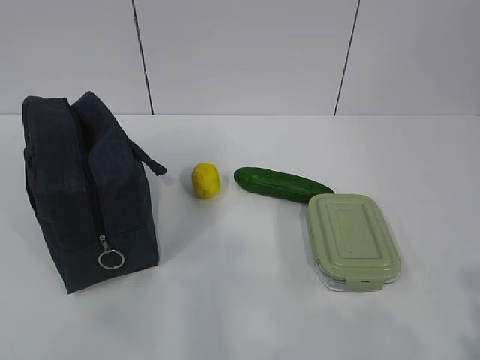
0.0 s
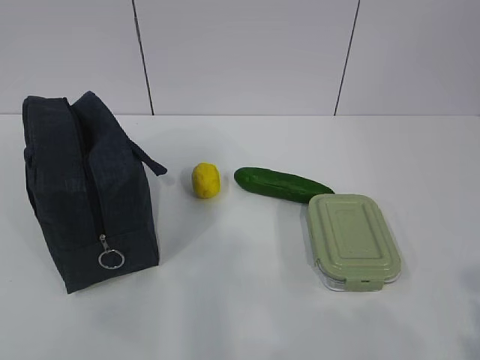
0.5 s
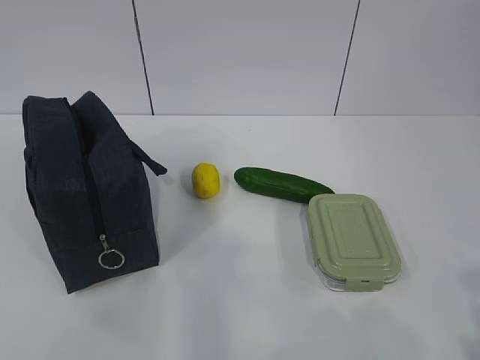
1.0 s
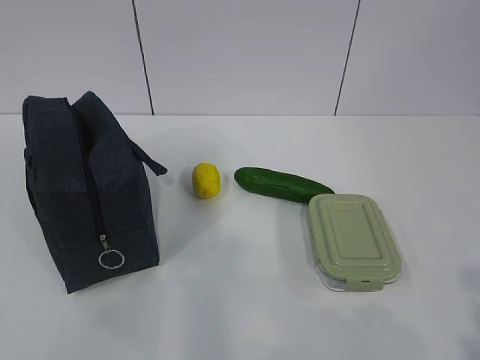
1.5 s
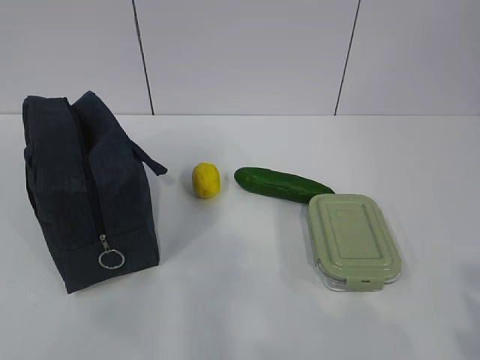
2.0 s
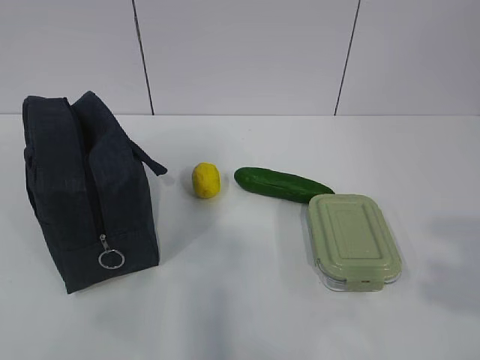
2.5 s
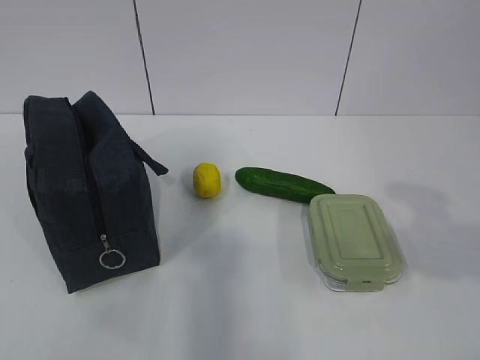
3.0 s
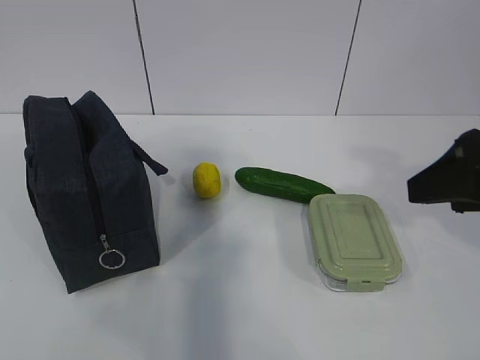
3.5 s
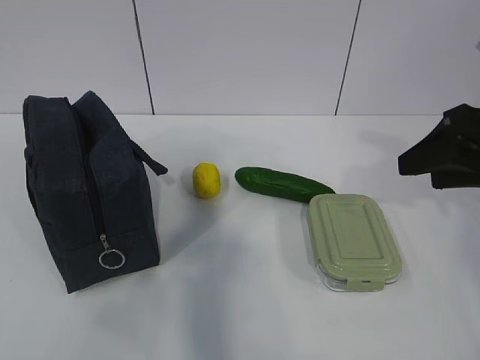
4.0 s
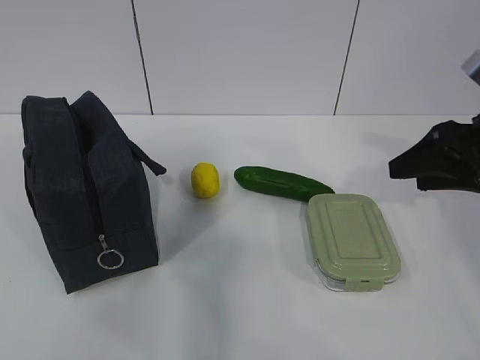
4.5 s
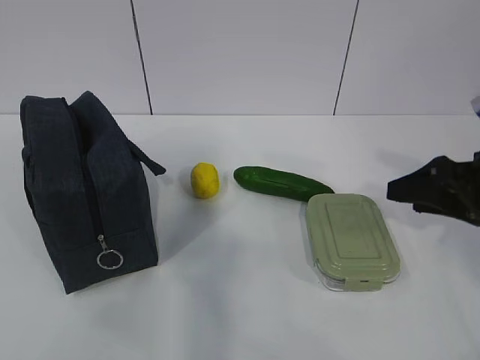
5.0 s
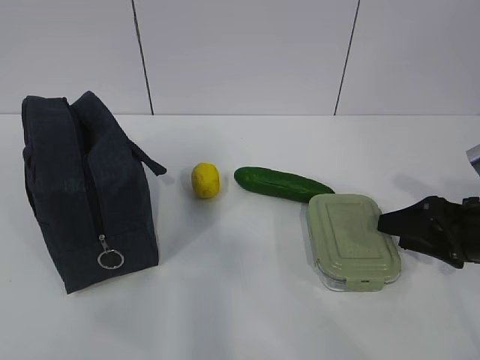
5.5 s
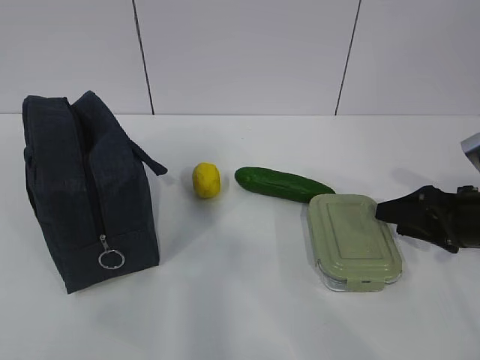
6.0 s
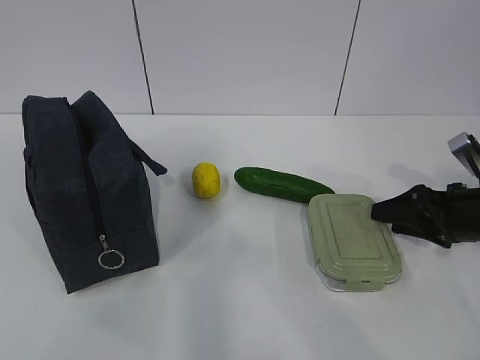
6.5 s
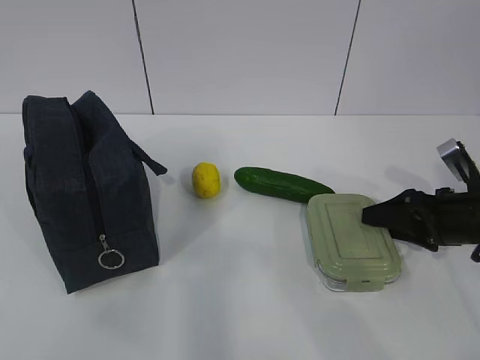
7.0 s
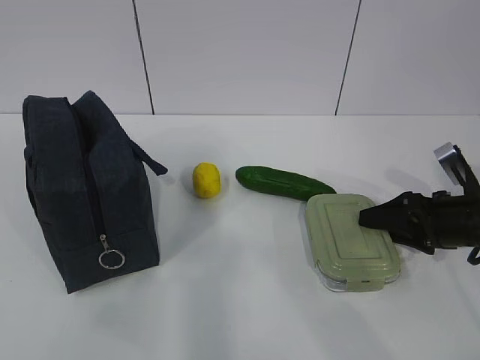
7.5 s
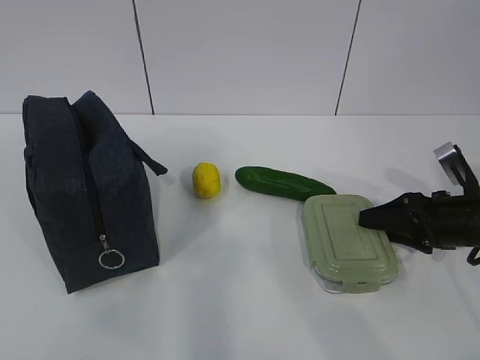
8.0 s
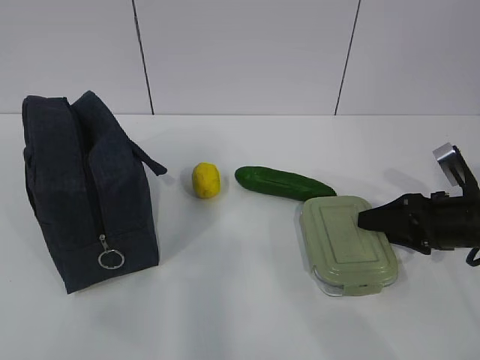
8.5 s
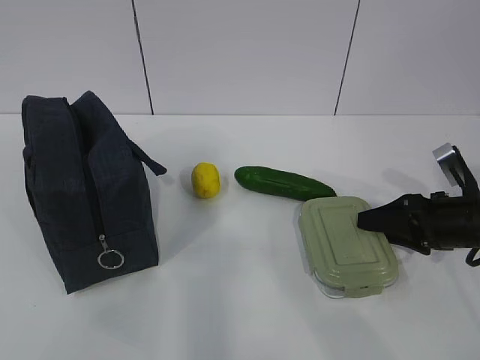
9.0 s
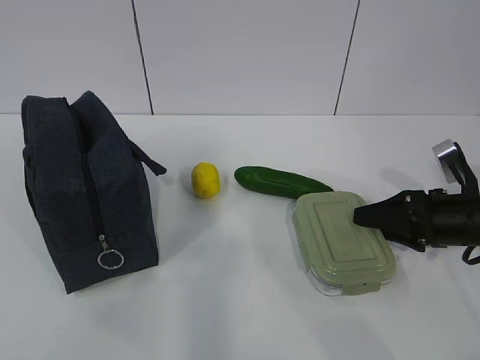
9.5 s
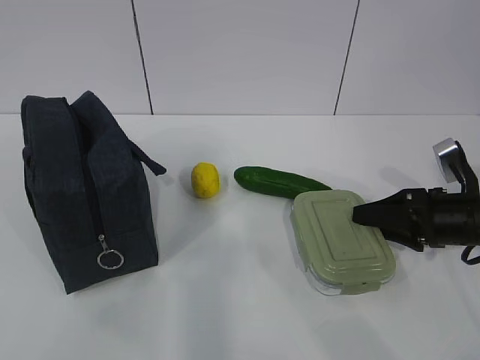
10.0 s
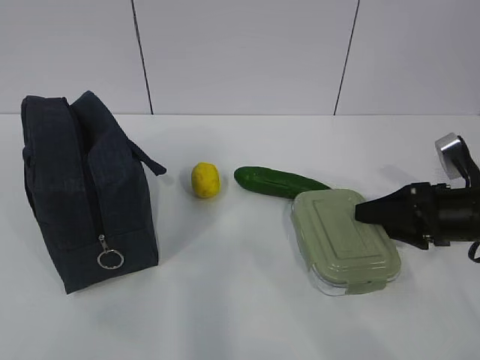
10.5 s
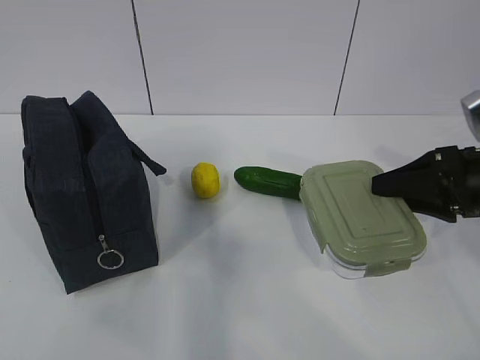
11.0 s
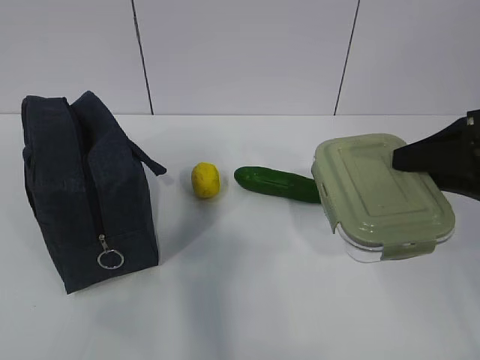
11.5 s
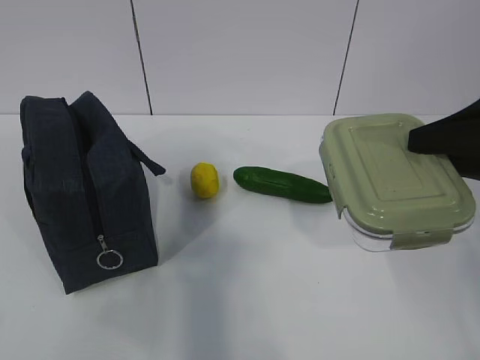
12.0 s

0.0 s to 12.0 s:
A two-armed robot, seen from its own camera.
Step, 0.0 to 7.0 s: Grab the lunch box with your right hand.
2.0 to 4.0 s: The right gripper is displaced forward by roughly 25 cm.
4.0 to 6.0 s: The right gripper is displaced downward by approximately 15 cm.
6.0 to 10.0 s: The grippers stay close to where they were, moving slightly.
10.0 to 12.0 s: The right gripper shifts some 20 cm upward and backward.

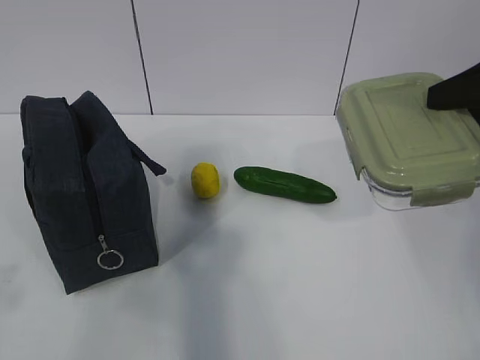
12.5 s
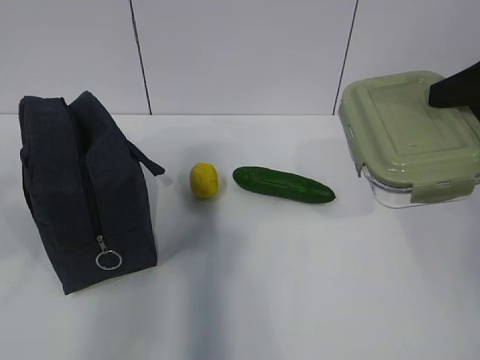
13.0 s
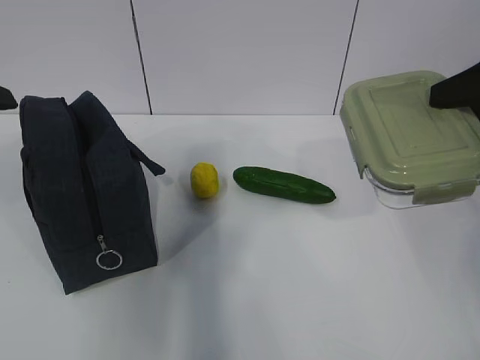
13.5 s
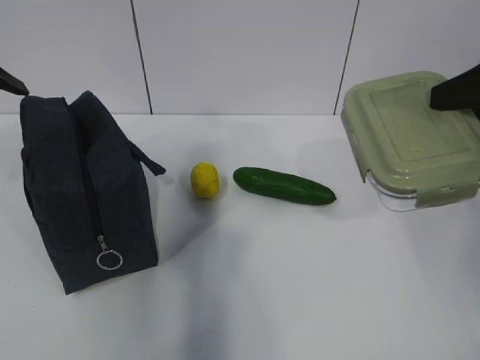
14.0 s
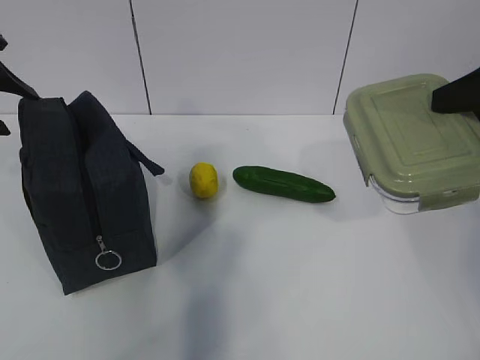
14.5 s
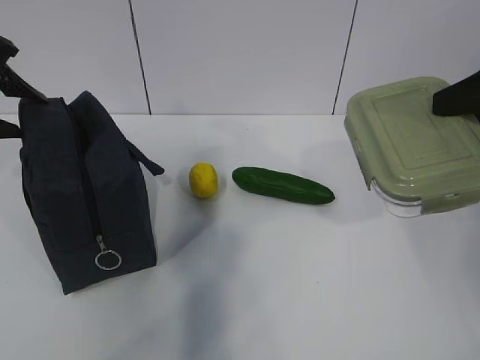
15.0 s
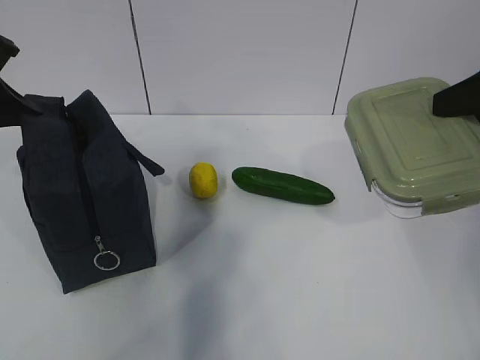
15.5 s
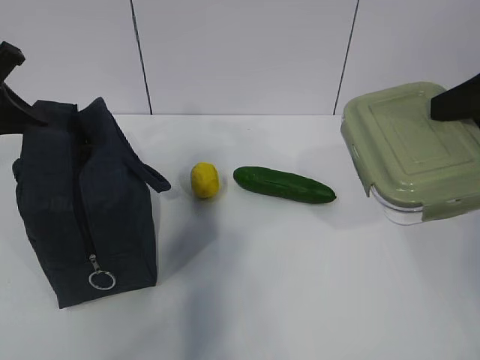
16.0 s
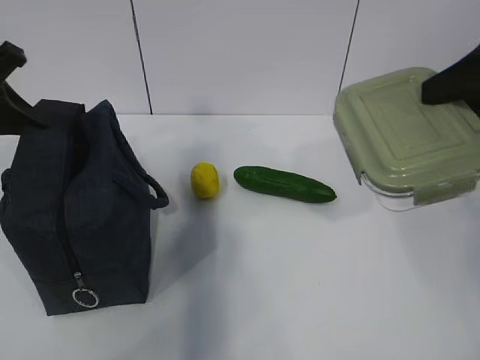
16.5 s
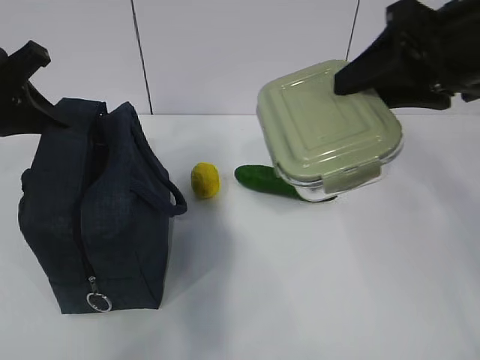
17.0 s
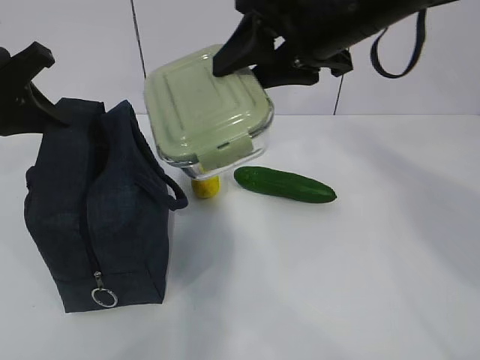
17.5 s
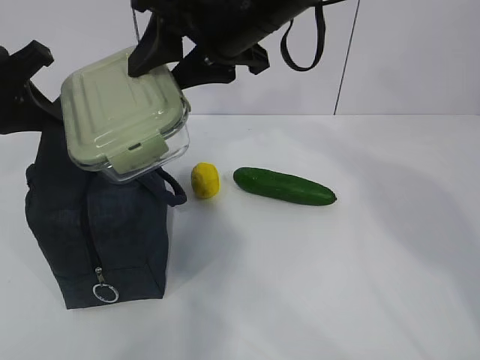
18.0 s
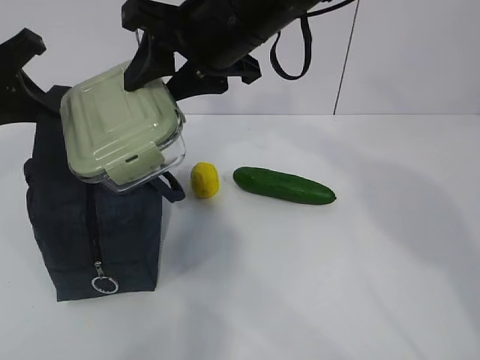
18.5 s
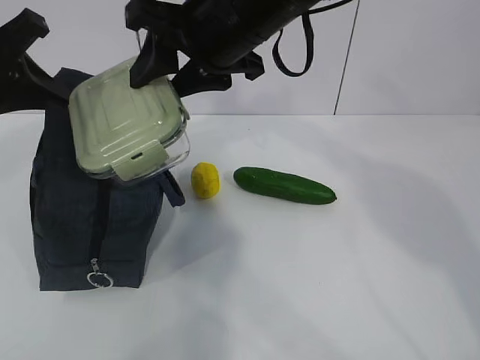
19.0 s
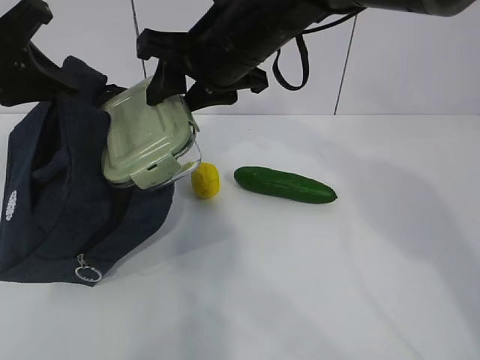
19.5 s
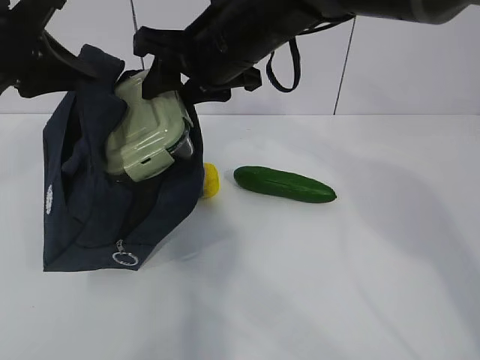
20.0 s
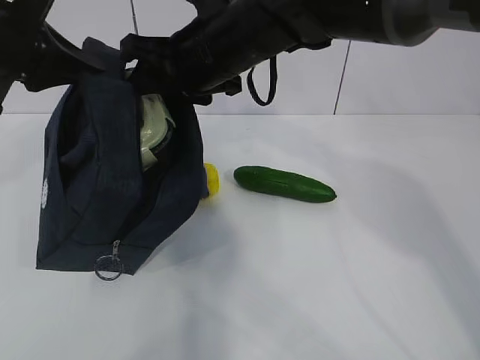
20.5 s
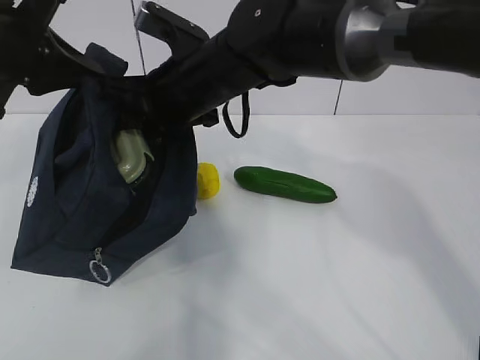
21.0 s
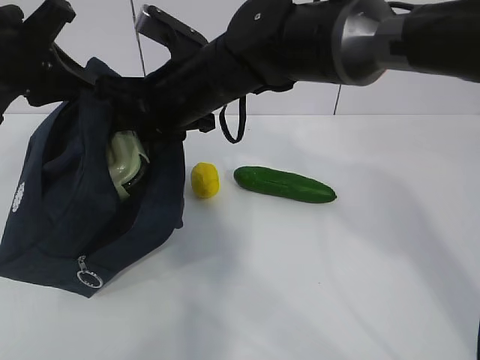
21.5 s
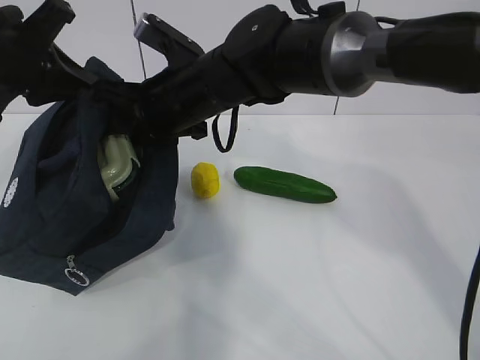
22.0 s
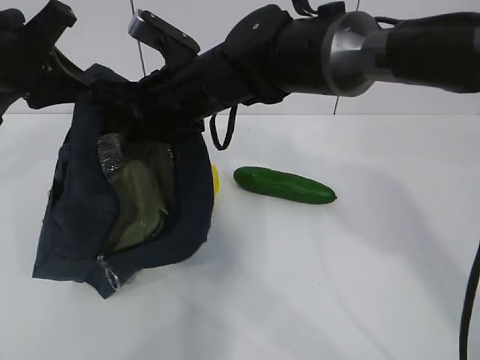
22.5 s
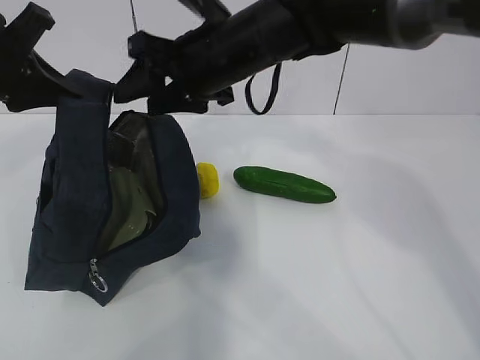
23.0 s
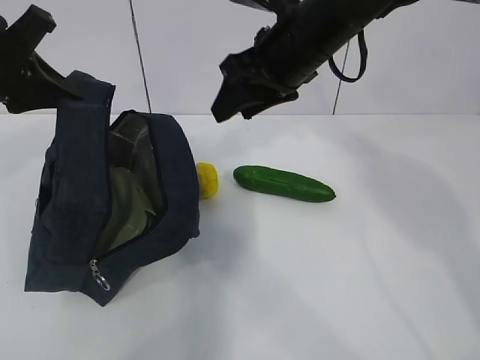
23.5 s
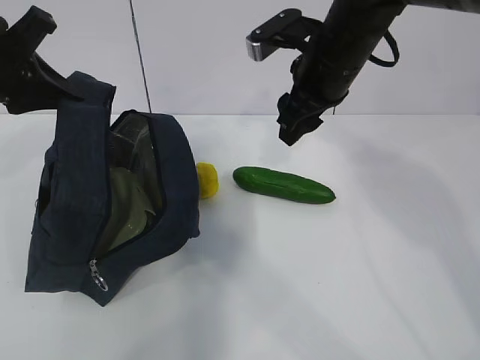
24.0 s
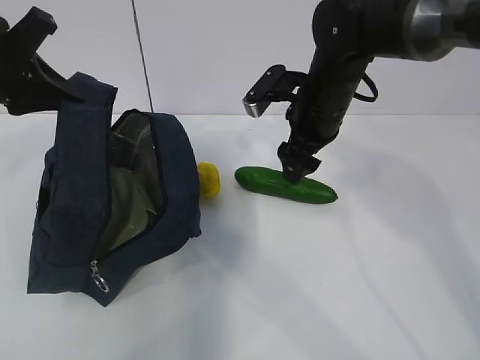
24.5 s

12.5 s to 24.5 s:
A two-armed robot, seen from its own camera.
Step, 12.5 to 15.0 s: Grab the lunch bag with your left hand.
Step, 15.5 to 18.5 s: Place it into the bag with your right hand.
Step, 19.0 to 21.5 s: Grab the cucumber with your right hand.
12.5 to 14.5 s: The left gripper moves forward, about 30 cm.
14.5 to 16.5 s: The left gripper closes up.
16.5 to 18.5 s: The right gripper goes about 25 cm to the left.
18.5 to 20.5 s: The left gripper changes place by some 5 cm, while the right gripper changes place by some 5 cm.
20.5 to 22.5 s: The right gripper changes place by approximately 5 cm.
22.5 to 24.5 s: The right gripper moves to the right, roughly 15 cm.

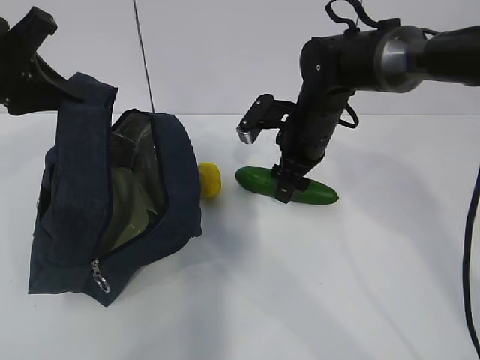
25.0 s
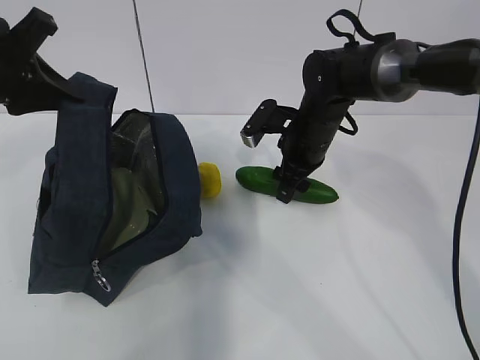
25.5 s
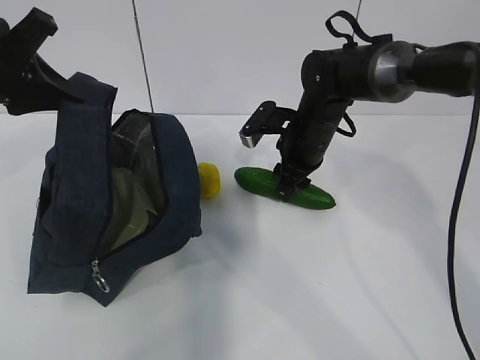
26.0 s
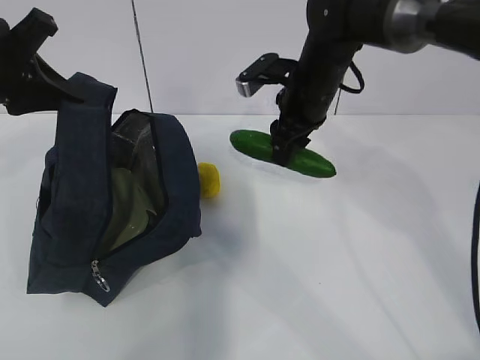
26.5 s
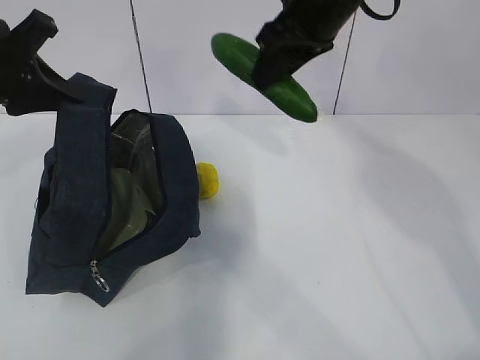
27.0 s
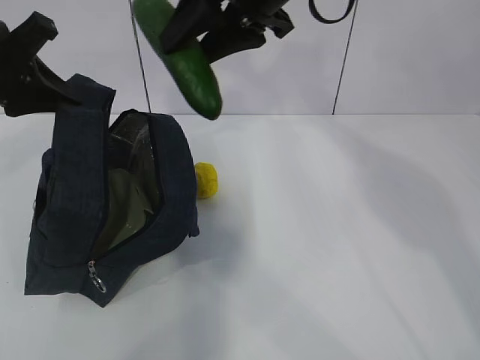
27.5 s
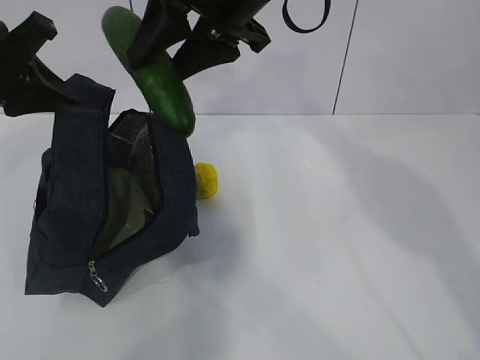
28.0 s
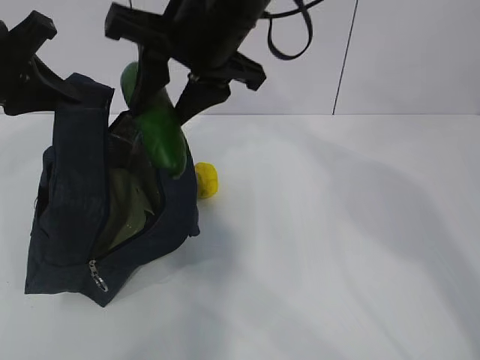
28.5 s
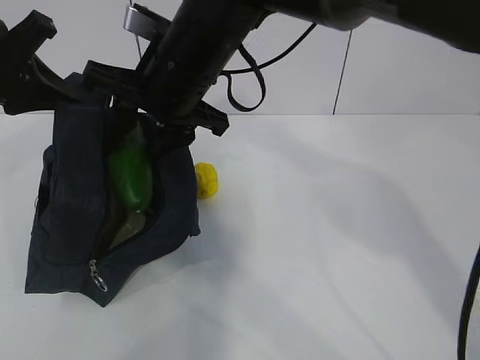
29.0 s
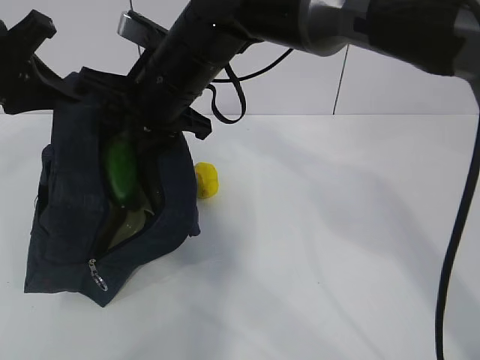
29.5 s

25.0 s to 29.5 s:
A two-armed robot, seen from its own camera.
Step, 25.5 to 29.0 s: Grab the lemon with your right hand.
25.0 to 27.0 s: The right gripper shifts about 15 cm upward, and closes up.
27.0 to 29.5 s: The right gripper moves to the left and downward, about 15 cm.
